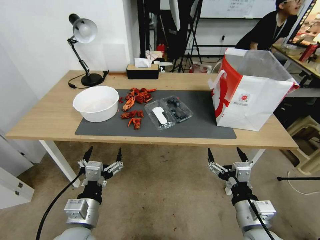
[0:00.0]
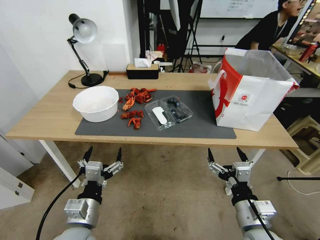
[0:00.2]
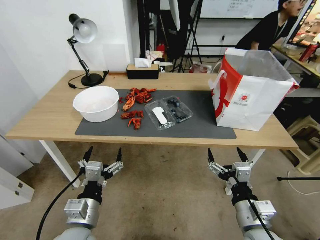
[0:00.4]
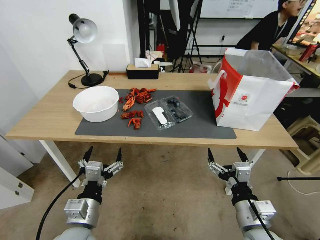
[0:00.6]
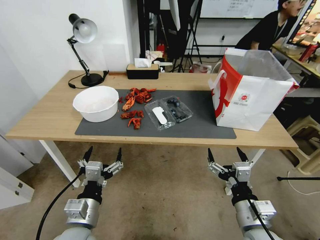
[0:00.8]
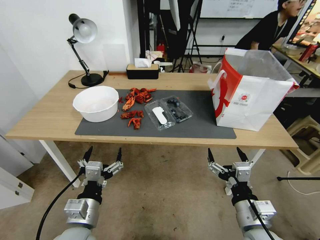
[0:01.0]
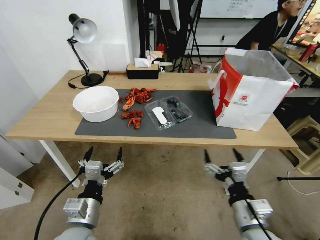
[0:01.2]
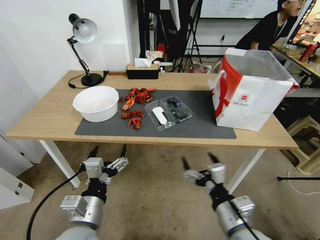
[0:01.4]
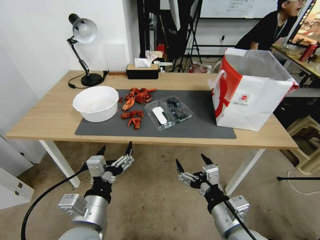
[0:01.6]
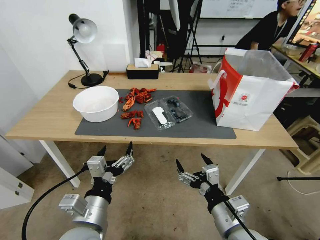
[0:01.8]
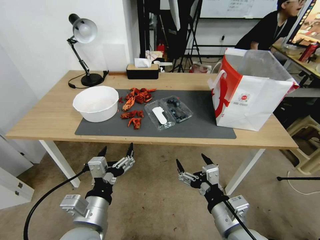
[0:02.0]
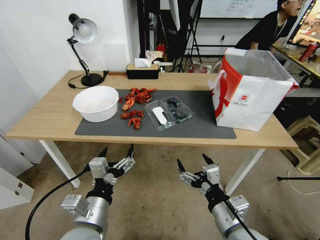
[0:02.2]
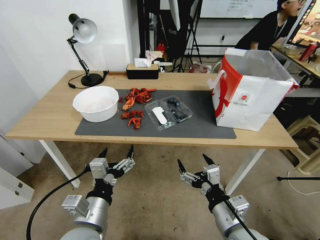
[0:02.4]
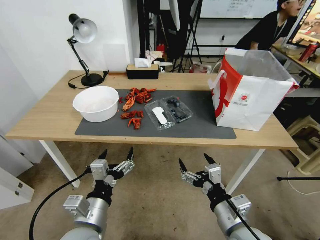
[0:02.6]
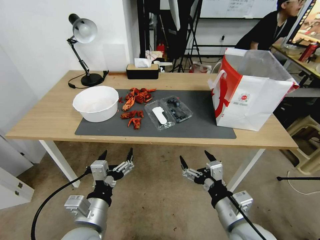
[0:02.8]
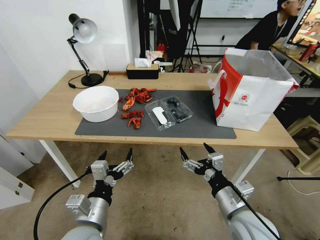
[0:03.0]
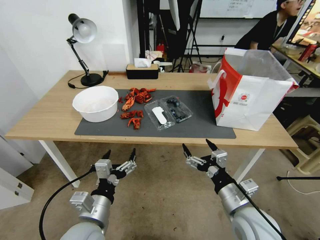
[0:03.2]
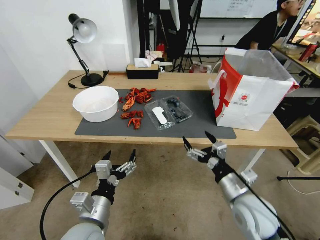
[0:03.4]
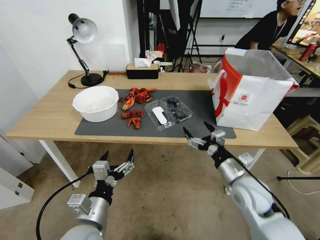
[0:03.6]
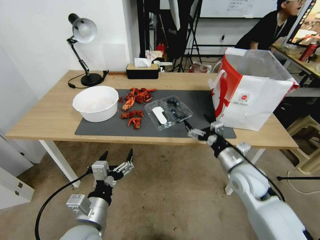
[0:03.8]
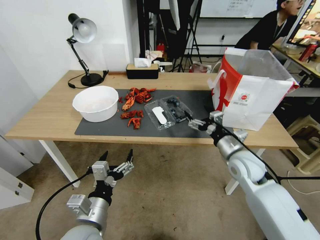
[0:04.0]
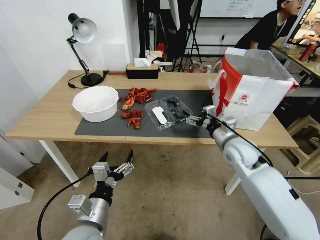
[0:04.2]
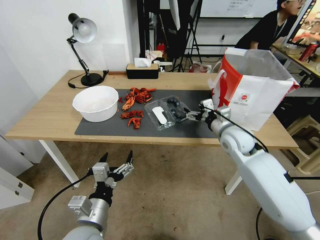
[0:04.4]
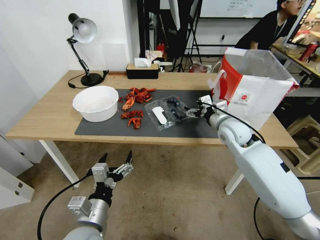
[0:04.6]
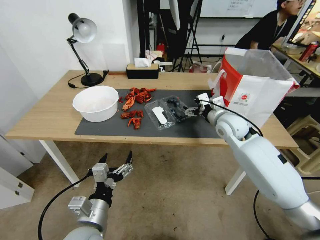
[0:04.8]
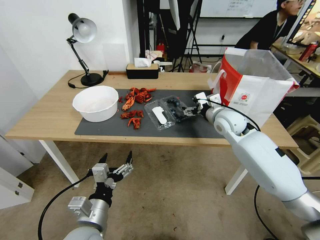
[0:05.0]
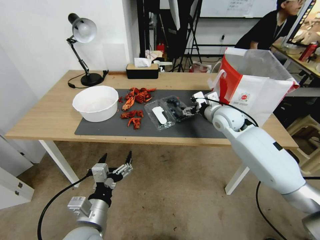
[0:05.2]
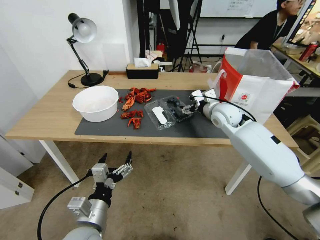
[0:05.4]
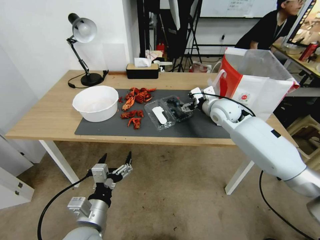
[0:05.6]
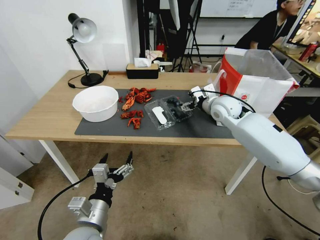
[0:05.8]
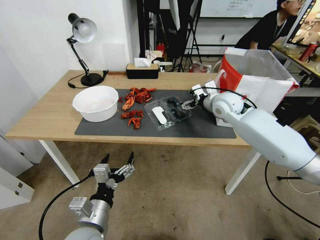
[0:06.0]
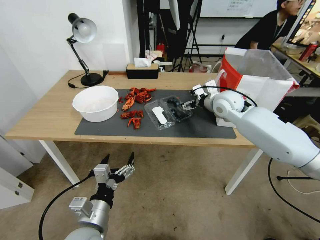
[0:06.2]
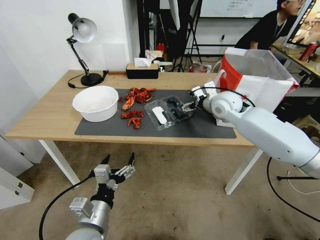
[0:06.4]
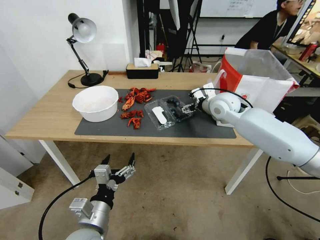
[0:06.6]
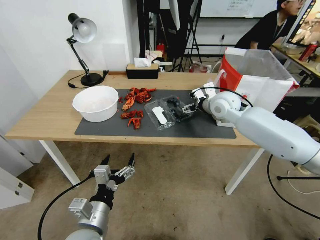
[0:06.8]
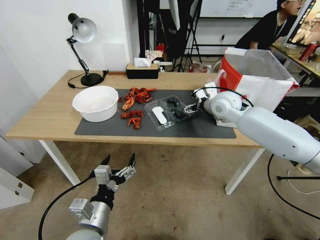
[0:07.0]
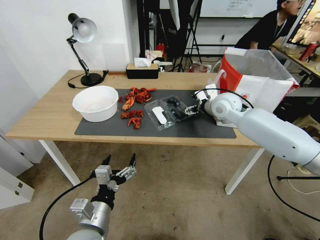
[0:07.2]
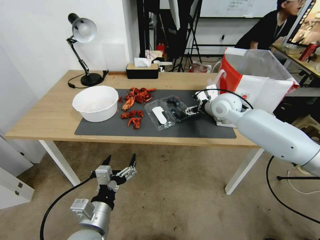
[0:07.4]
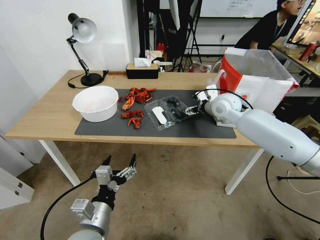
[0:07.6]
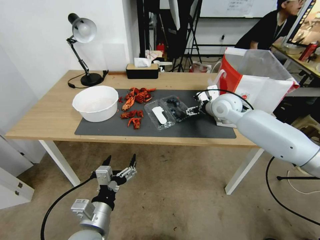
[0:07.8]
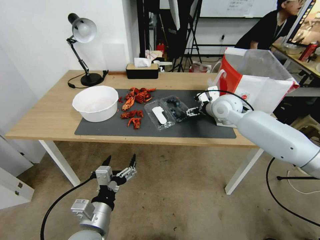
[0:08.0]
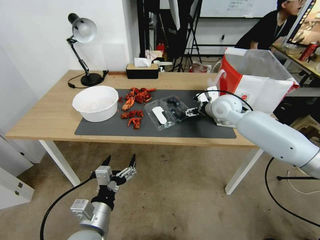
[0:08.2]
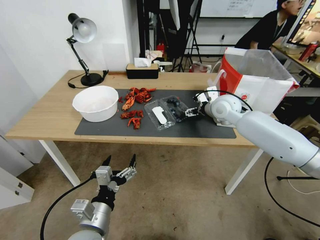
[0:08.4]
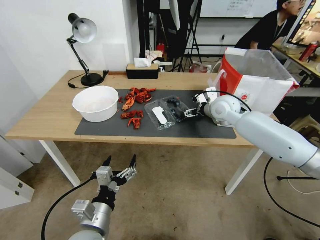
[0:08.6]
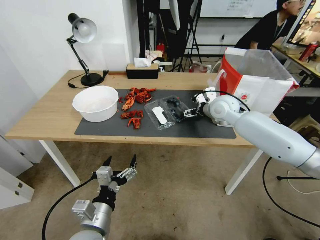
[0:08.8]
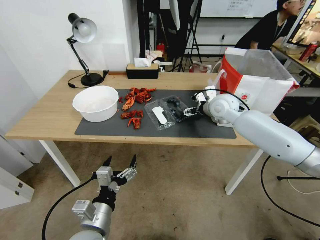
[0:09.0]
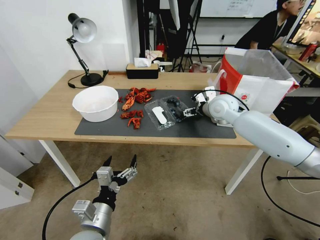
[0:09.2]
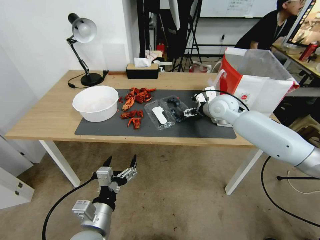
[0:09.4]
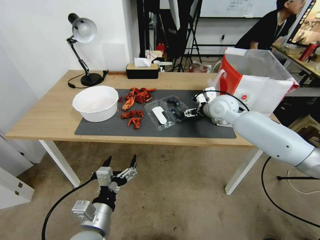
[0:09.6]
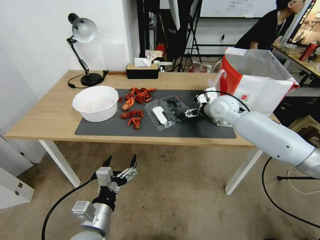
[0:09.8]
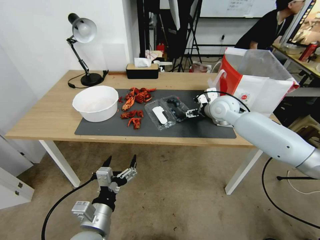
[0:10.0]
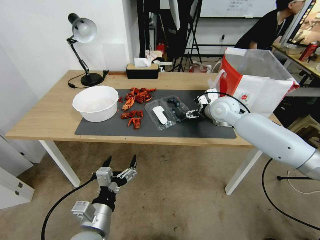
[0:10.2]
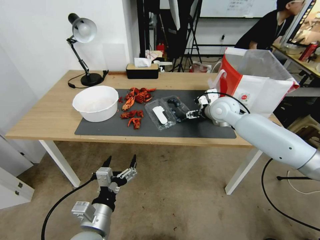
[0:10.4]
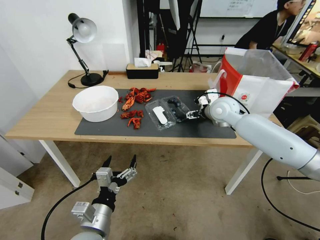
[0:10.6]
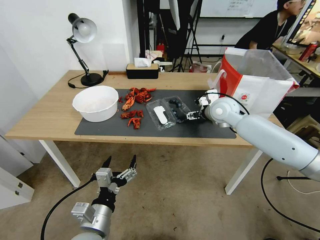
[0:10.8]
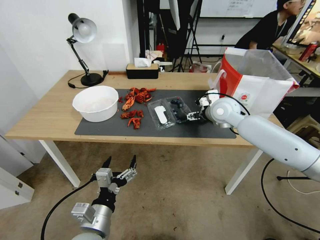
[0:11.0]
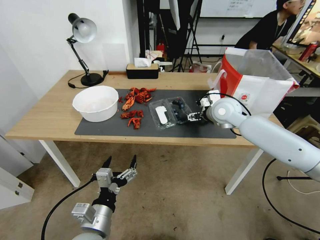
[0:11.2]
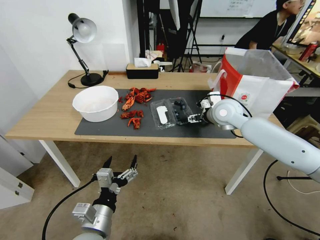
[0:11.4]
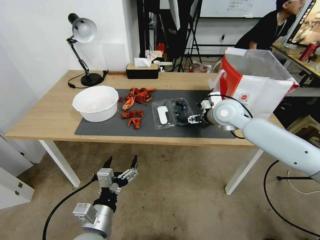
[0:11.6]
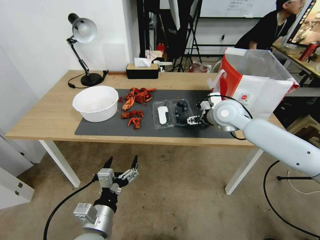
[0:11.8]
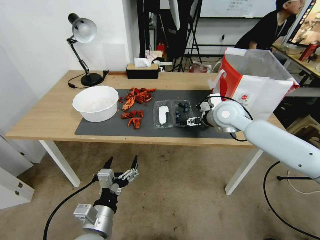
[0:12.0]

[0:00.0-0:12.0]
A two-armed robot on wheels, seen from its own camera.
Task of the whole recording: Close the takeout container lid, then place the container into the takeout bag.
0:01.6 to 0:03.0: The grippers stay close to where they were, moving slightly.
0:03.0 to 0:04.4: The right gripper goes about 25 cm forward.
0:04.4 to 0:06.0: The right gripper travels forward and upward by some 15 cm.
0:06.0 to 0:07.6: There are only small adjustments of the grippers.
0:07.6 to 0:09.0: Neither gripper changes place.
0:09.0 to 0:10.4: The two grippers keep their place.
0:10.4 to 0:12.0: The grippers move only a little.

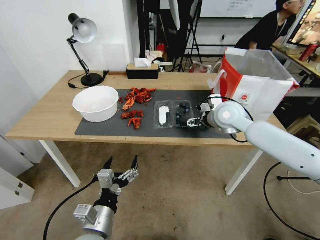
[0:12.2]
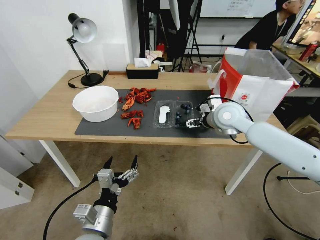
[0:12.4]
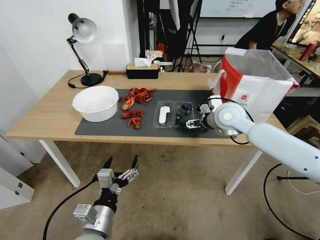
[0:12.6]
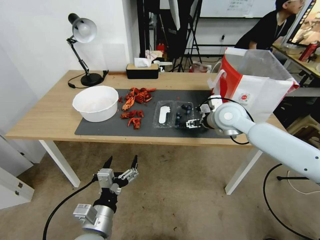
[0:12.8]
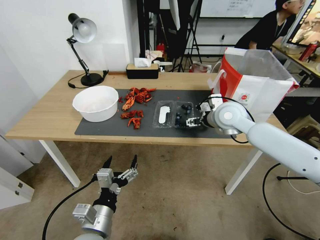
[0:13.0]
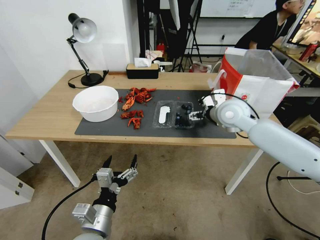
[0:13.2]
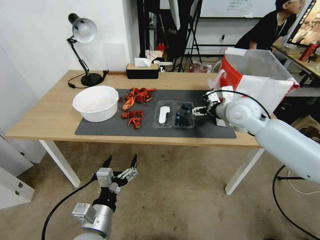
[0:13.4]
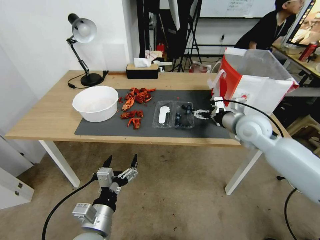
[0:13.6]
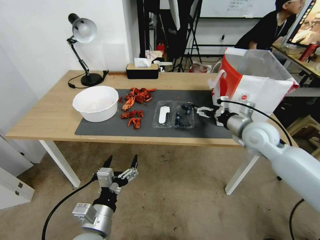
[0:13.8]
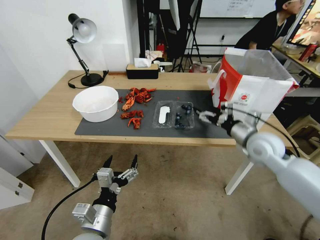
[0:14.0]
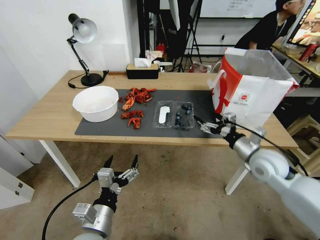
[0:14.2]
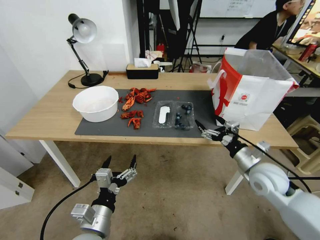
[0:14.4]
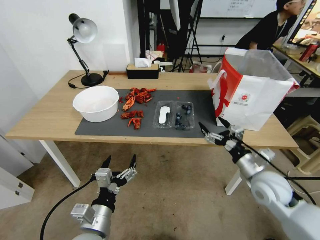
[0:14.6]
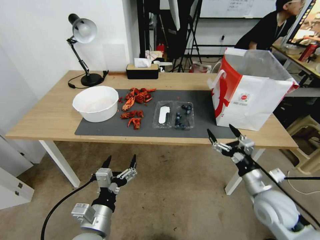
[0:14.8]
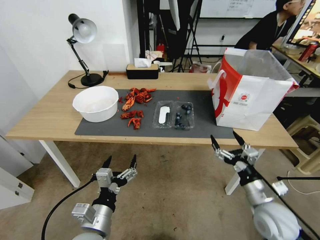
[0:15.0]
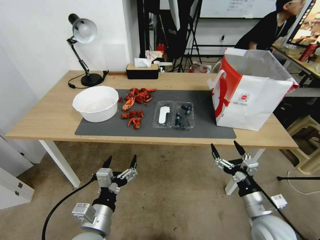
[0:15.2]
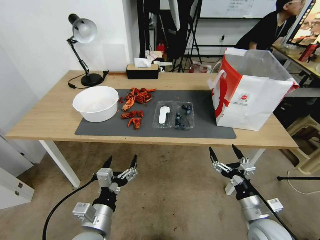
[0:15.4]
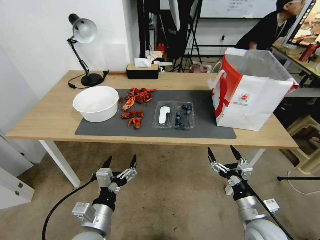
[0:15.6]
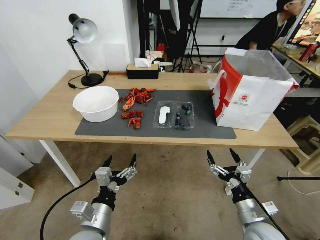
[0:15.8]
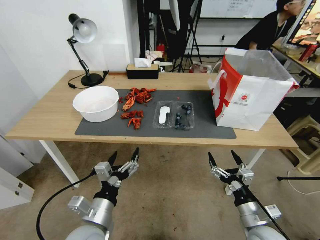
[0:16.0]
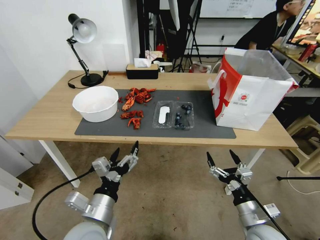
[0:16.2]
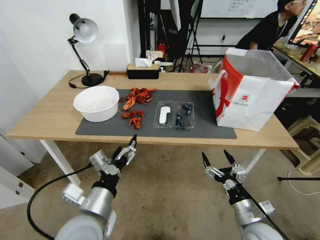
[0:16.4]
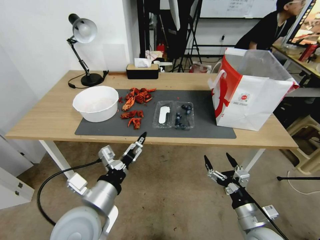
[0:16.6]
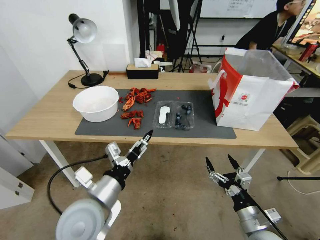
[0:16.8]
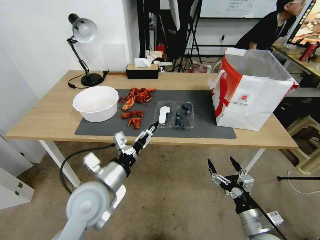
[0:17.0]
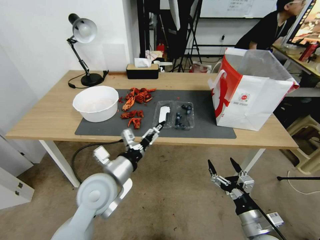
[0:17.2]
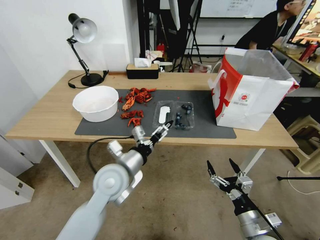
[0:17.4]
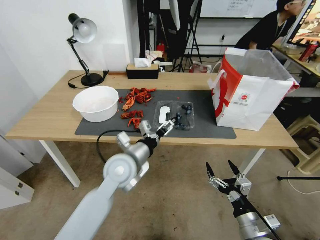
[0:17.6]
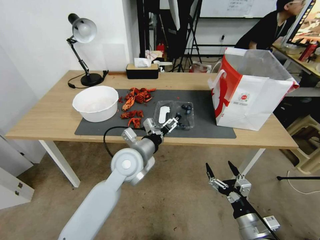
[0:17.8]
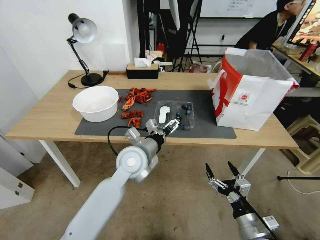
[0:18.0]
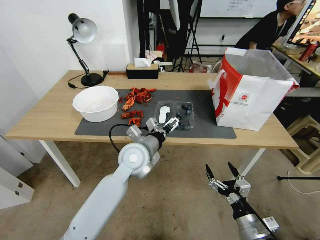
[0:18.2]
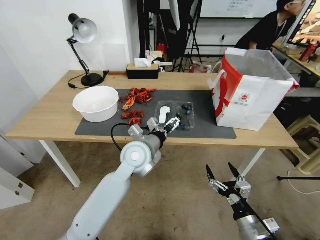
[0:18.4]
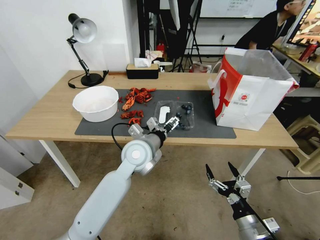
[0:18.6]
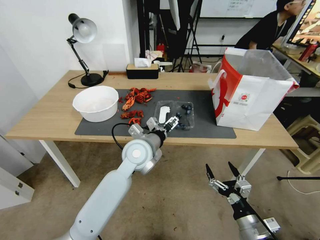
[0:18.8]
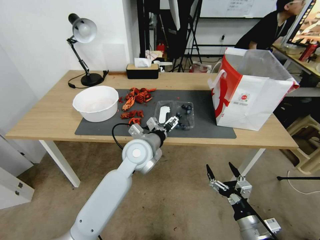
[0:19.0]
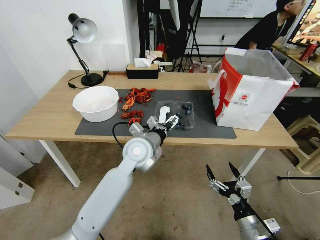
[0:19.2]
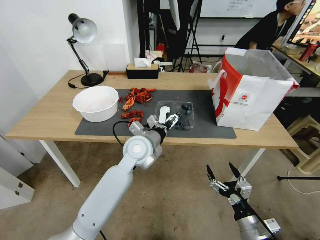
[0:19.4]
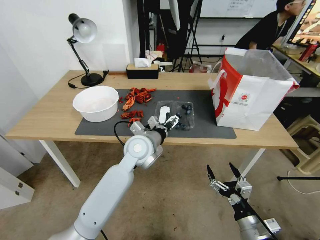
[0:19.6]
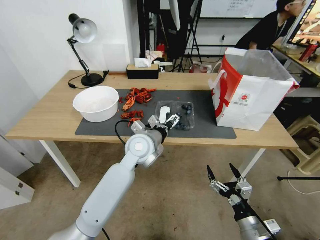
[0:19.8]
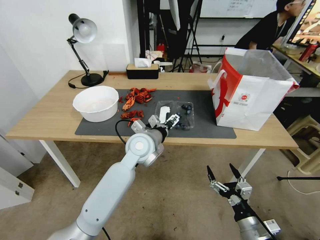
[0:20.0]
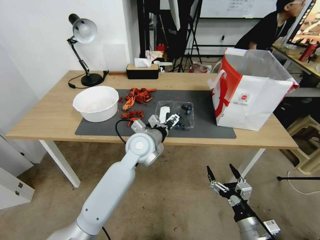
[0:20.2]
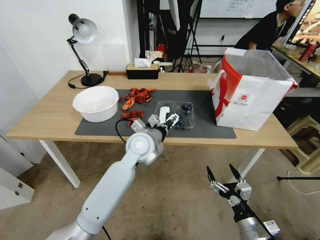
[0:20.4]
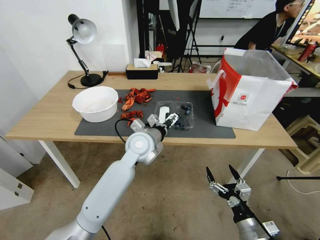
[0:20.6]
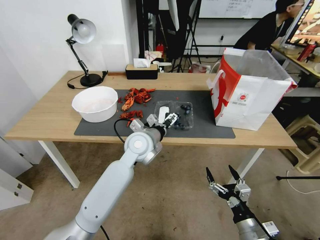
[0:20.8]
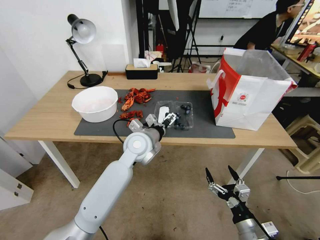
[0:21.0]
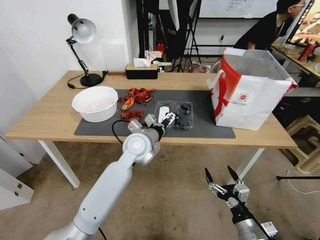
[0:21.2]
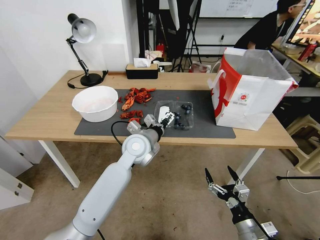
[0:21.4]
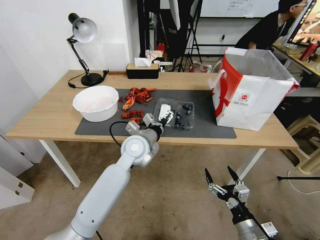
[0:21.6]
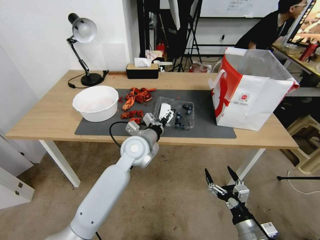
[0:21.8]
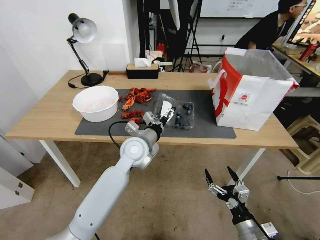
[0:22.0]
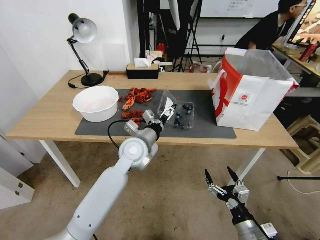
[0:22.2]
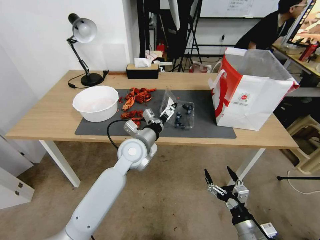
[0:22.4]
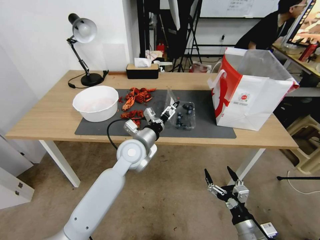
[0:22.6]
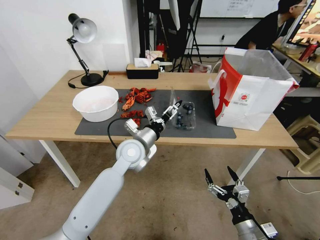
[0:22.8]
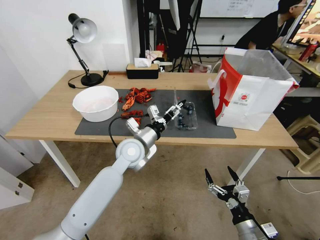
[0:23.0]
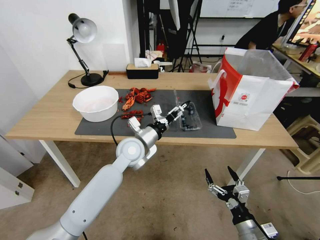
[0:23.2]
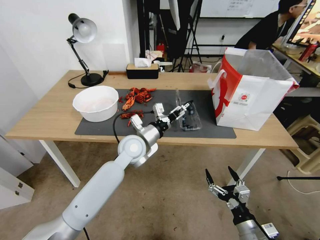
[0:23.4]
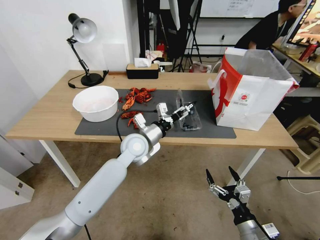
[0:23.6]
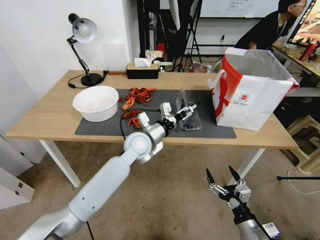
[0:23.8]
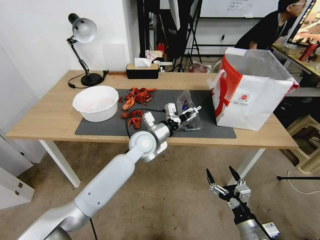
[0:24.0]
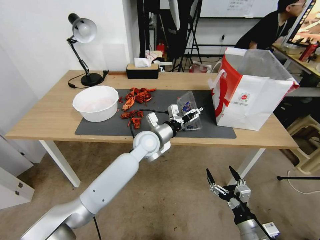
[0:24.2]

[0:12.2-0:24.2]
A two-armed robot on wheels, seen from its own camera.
Task of the whole recording: Close the takeout container lid, then place the container into the takeout bag.
0:12.2 to 0:13.8: The right gripper heads to the right and backward, covering roughly 10 cm.
0:13.8 to 0:15.2: The right gripper is displaced backward and downward by approximately 25 cm.
0:15.2 to 0:16.6: The left gripper goes roughly 10 cm upward.
0:16.6 to 0:18.2: The left gripper heads forward and to the right, covering about 20 cm.
0:18.2 to 0:21.2: The grippers move only a little.
0:22.6 to 0:24.2: The left gripper moves roughly 5 cm.
